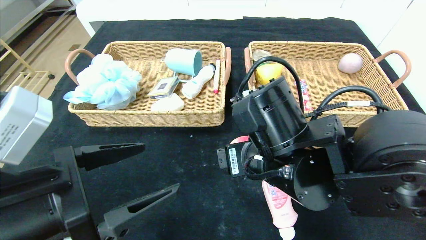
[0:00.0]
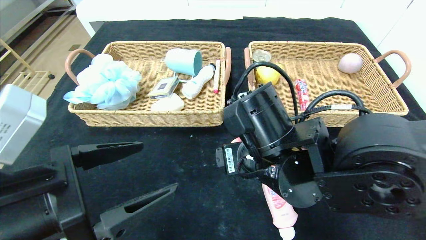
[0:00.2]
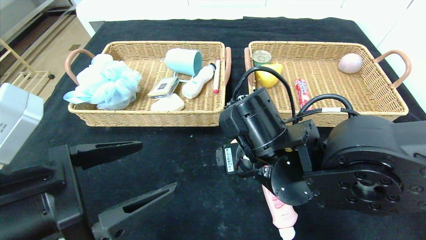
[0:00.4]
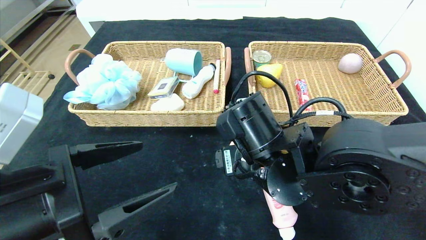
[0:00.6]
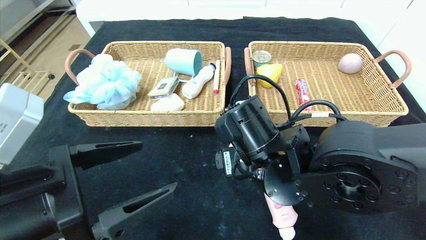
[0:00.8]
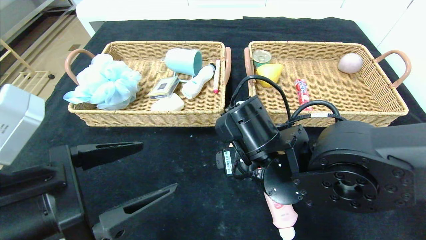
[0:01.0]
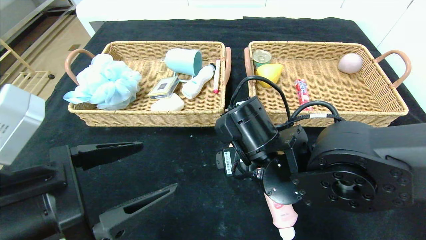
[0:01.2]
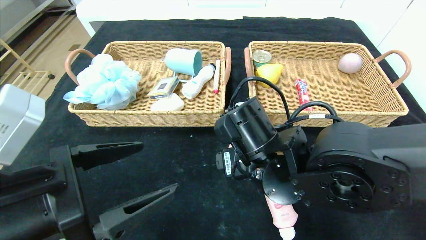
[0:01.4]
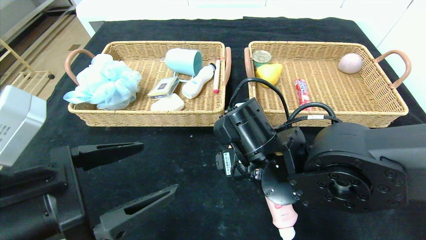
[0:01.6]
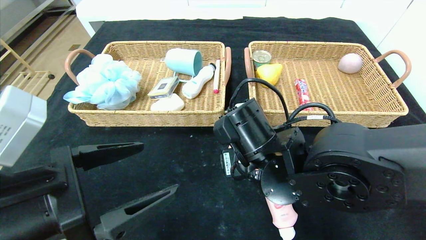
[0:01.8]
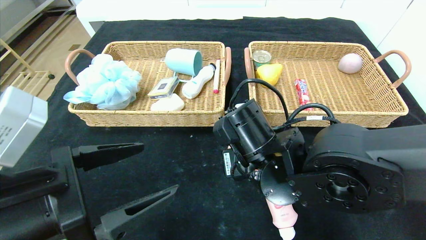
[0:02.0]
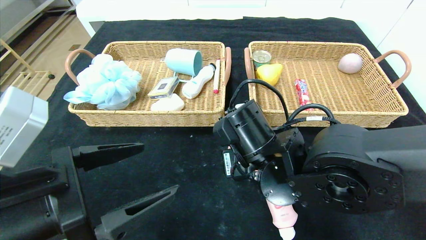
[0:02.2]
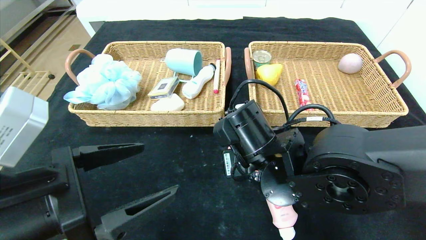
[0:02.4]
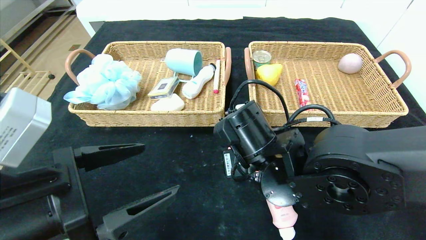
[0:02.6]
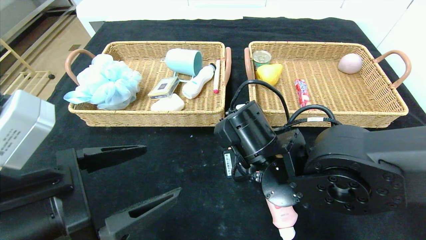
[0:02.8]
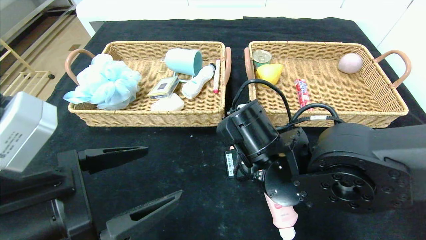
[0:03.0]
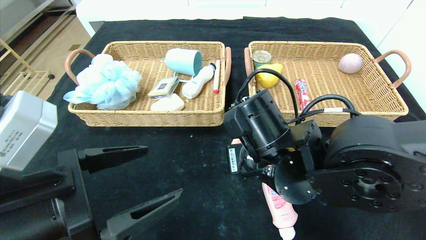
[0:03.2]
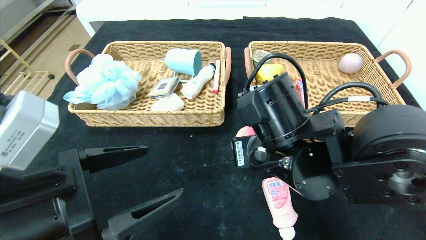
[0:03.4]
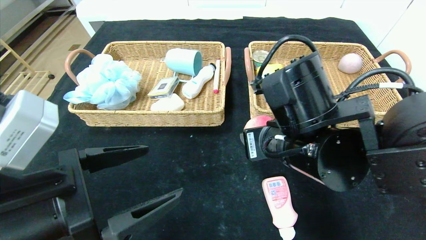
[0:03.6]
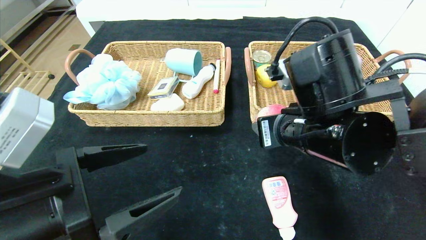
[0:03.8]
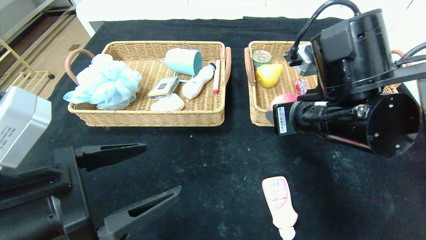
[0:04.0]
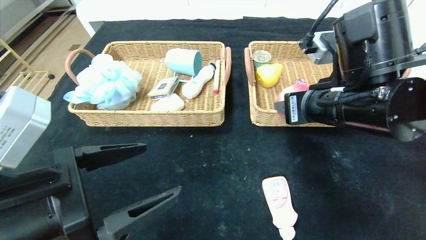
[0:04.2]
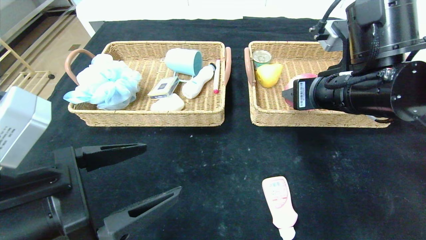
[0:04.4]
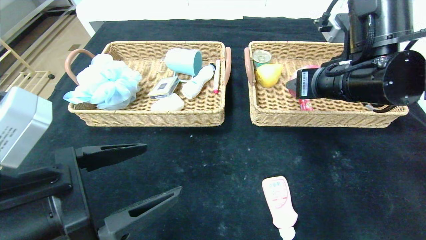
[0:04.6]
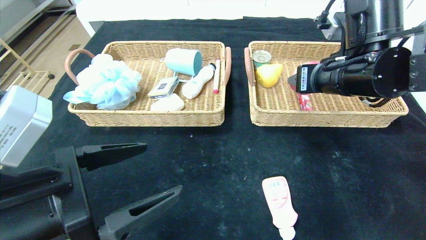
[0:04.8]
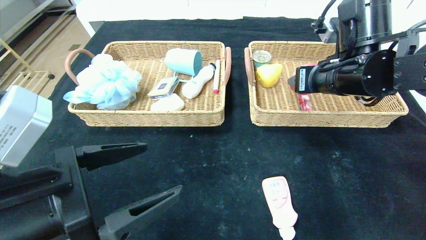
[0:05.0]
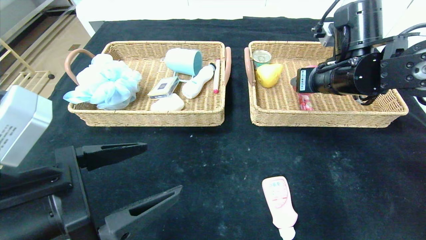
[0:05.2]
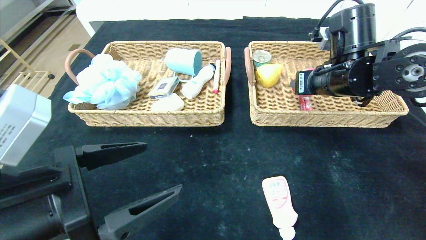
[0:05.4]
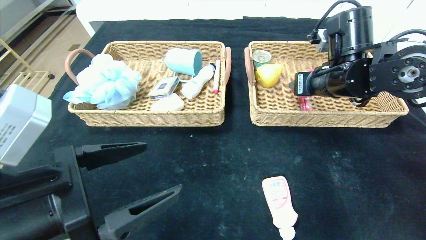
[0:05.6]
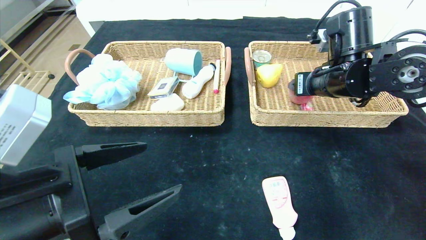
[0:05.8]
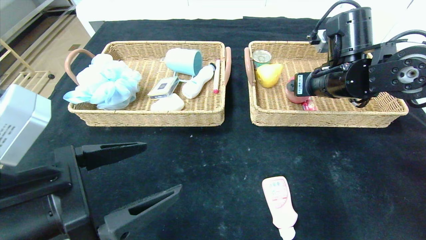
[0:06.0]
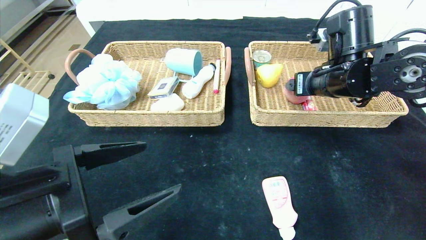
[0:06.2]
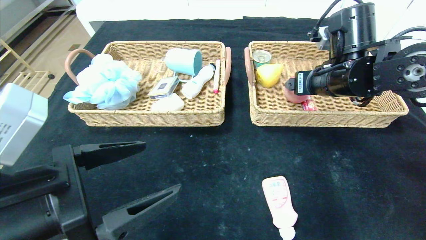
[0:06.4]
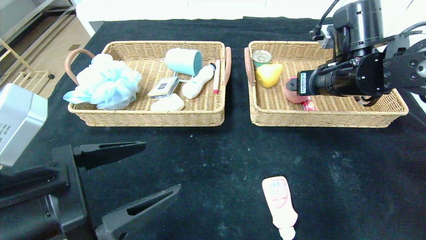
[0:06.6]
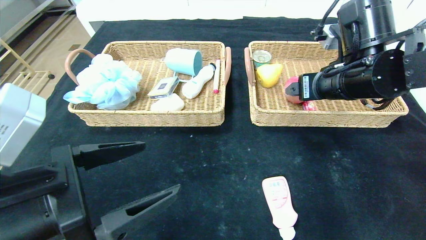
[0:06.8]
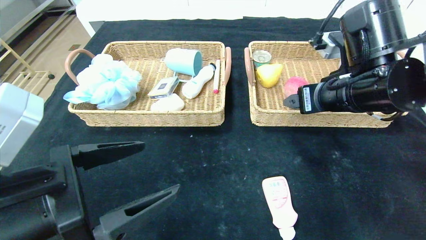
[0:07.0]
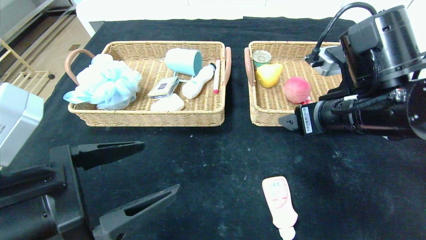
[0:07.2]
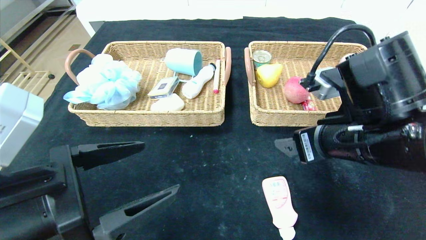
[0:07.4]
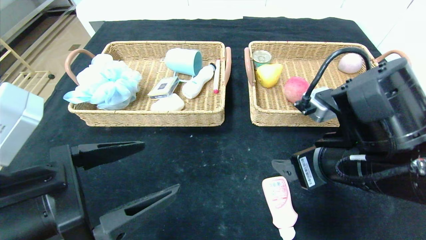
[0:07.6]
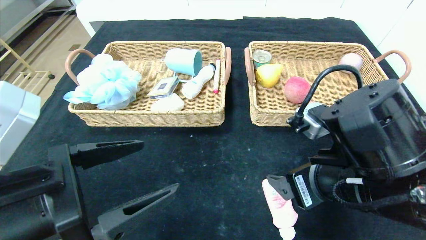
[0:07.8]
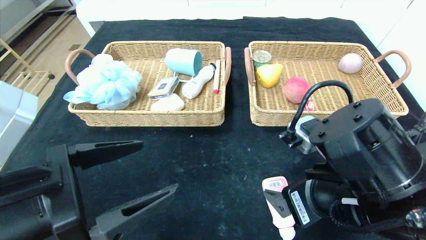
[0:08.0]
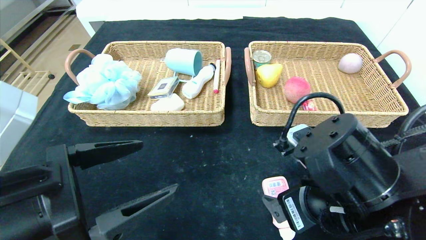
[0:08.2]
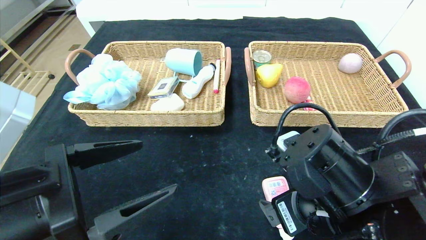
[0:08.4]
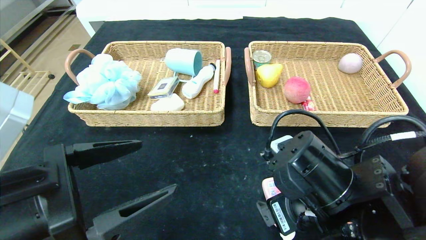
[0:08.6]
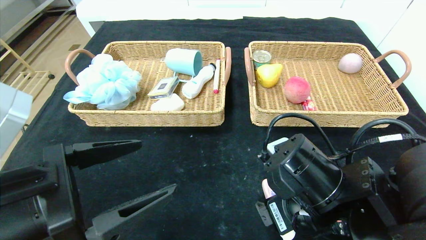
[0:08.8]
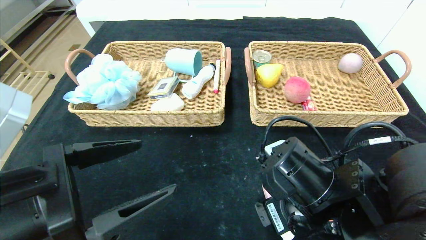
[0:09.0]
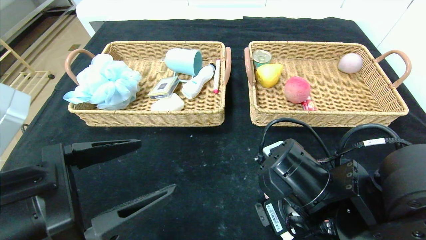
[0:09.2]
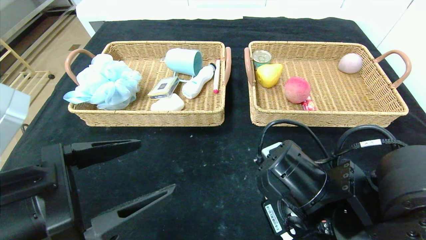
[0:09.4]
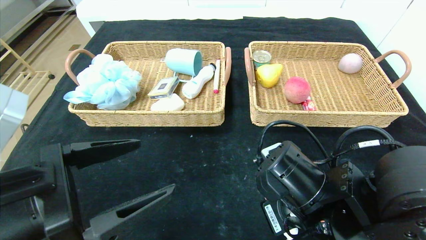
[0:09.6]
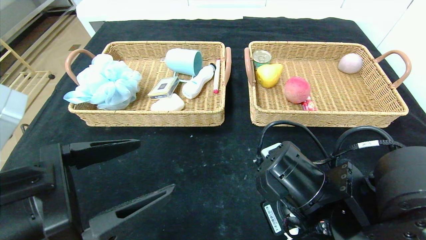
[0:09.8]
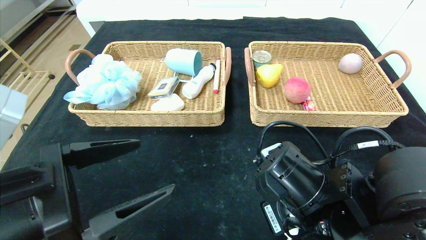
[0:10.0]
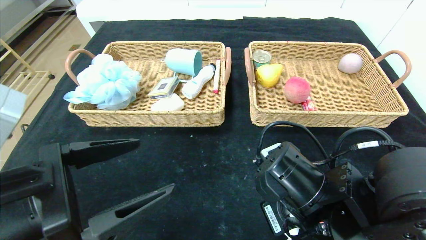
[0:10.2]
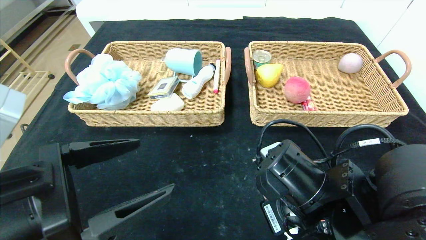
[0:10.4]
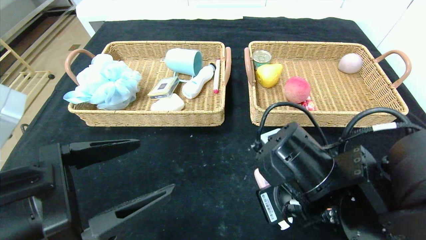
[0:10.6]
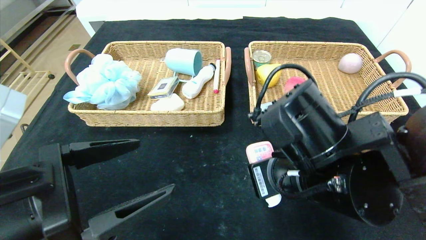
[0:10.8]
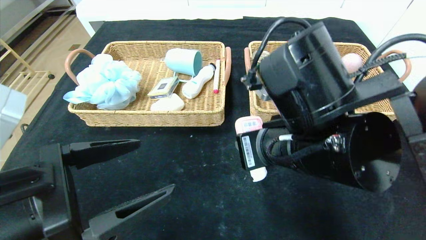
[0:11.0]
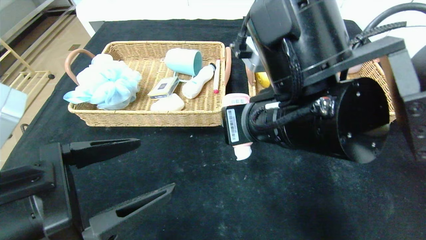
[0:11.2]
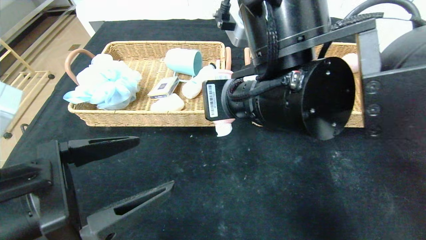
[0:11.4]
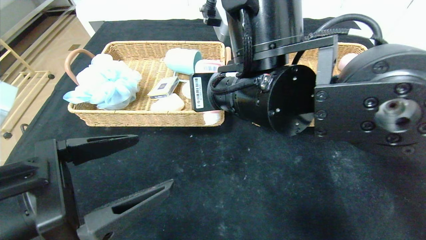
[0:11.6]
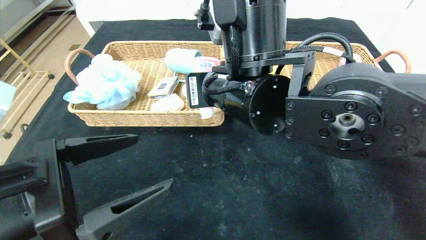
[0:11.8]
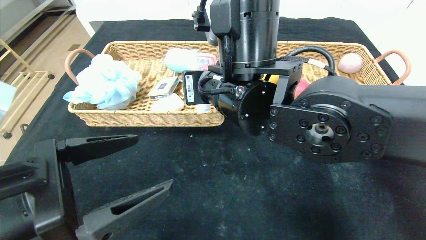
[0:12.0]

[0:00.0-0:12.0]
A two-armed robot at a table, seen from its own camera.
Step, 0:00.0 to 0:07.4: Pick up the peach and put it in the right basket.
0:00.0 to 0:01.6: The grippers make only small movements.
0:01.6 to 0:03.0: The right gripper closes its fingers.
0:03.0 to 0:04.4: The right gripper moves to the right and upward, approximately 15 cm.
0:04.4 to 0:06.0: The right gripper is displaced forward by some 10 cm.
0:06.0 to 0:07.6: The right gripper is displaced backward by approximately 15 cm.
0:07.6 to 0:09.0: The right gripper is displaced downward by about 5 cm.
0:09.0 to 0:10.4: The right gripper closes.
0:10.4 to 0:12.0: The right gripper travels upward, to the left and forward by some 20 cm.

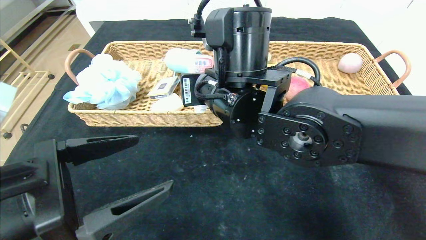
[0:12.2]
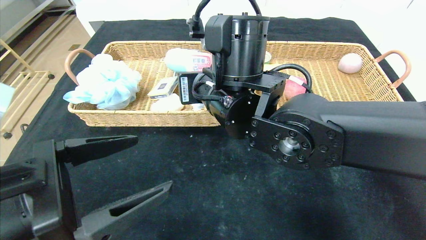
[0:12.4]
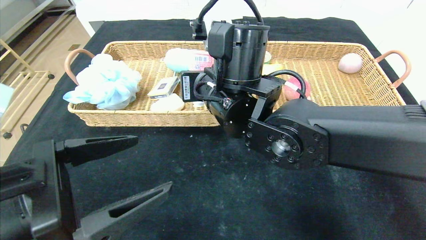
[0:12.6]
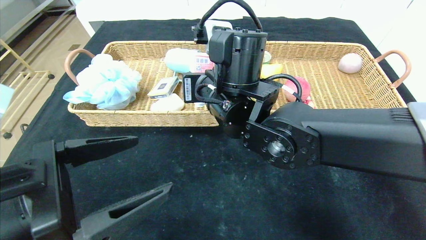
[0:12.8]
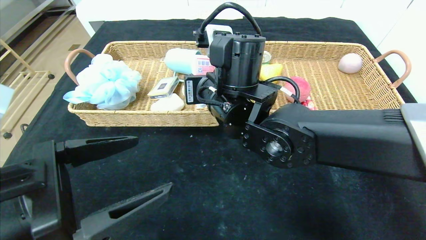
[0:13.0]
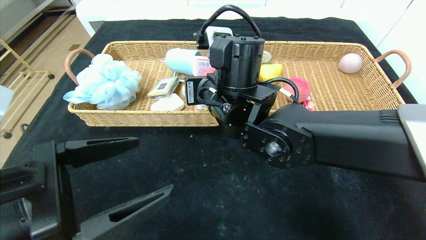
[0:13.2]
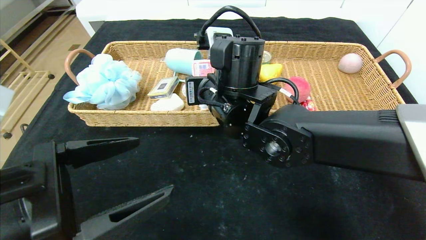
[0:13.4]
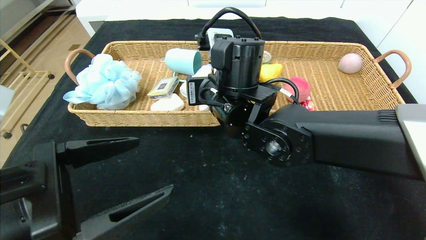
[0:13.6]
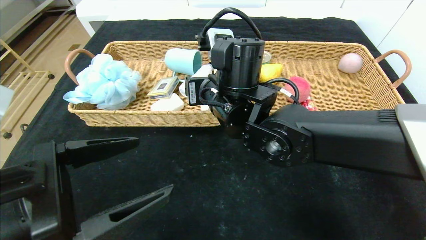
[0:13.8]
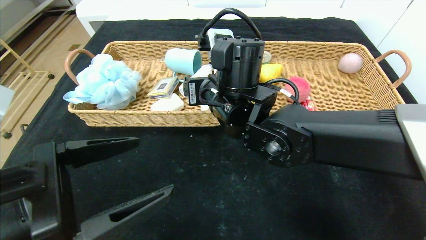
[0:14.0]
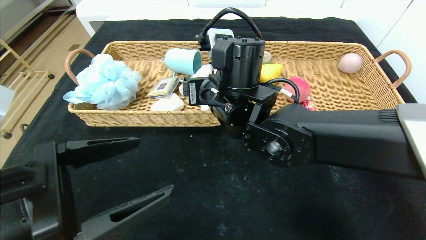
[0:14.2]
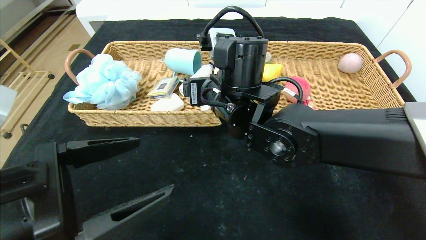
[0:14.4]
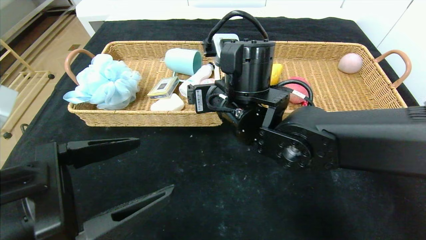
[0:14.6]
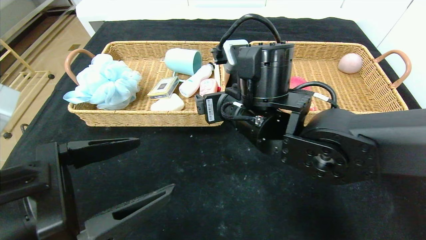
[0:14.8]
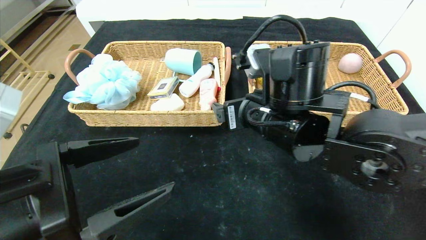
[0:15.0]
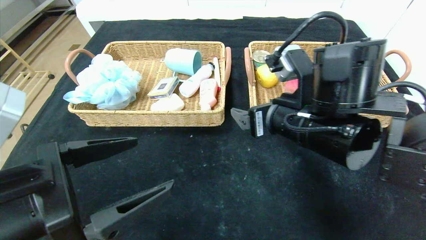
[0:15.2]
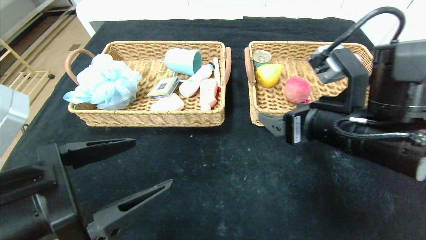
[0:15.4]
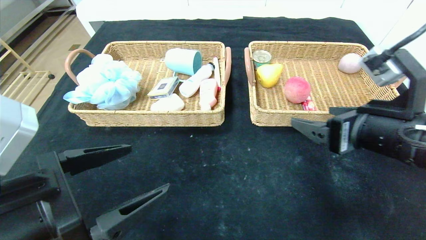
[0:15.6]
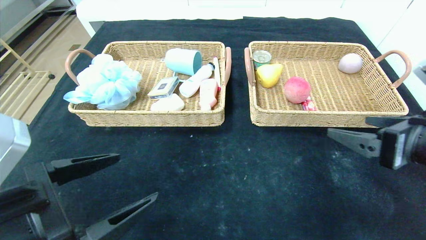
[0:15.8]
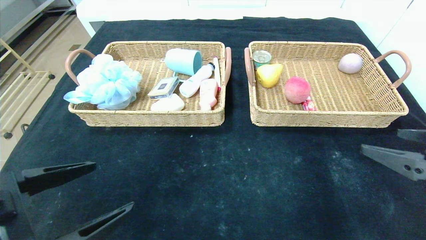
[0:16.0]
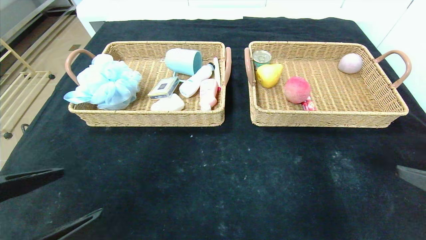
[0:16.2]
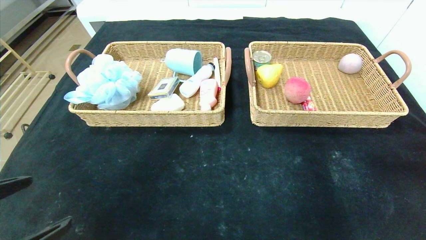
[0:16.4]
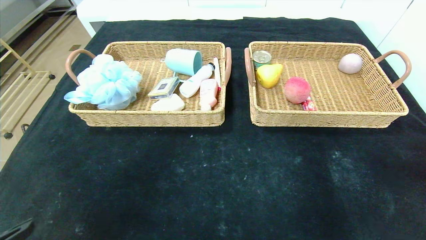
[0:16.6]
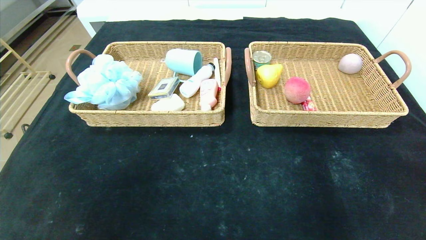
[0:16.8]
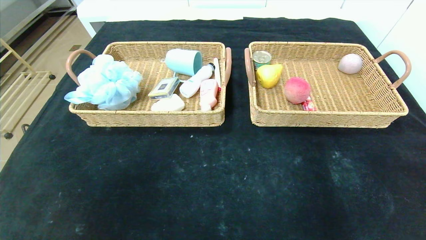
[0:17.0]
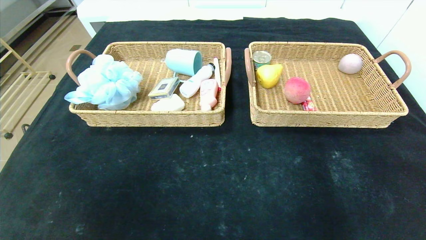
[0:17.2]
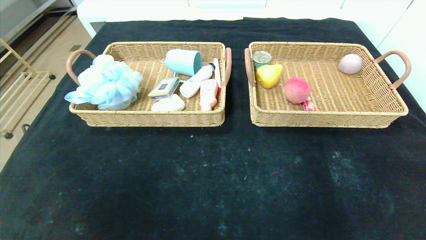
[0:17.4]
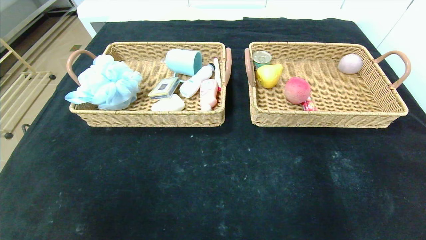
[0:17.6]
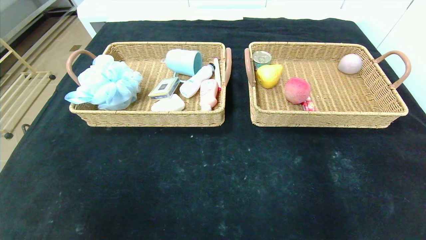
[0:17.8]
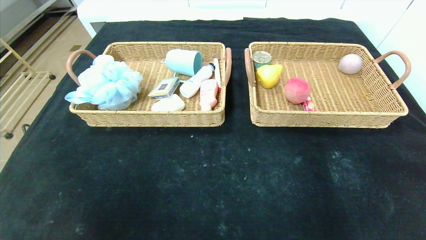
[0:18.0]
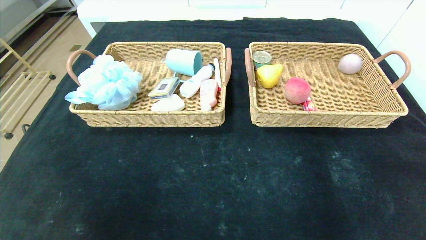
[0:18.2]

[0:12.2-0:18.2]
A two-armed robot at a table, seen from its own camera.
Step, 0:12.2 to 0:16.6: Pick up the washing liquid and put it in the left basket.
0:12.2 to 0:13.8: The right gripper opens up.
0:13.8 to 0:15.2: The right gripper goes some 15 cm to the right and backward.
0:15.2 to 0:16.6: The left gripper is displaced to the left and backward by approximately 15 cm, while the right gripper moves to the right and backward, approximately 30 cm.
0:16.6 to 0:18.2: The right gripper shifts approximately 15 cm downward and backward; the left gripper moves backward, about 10 cm.
